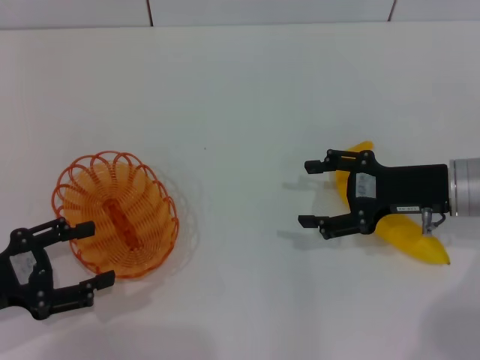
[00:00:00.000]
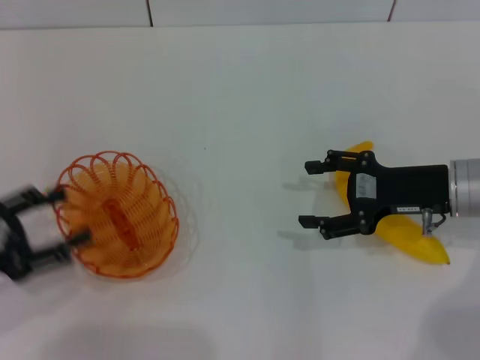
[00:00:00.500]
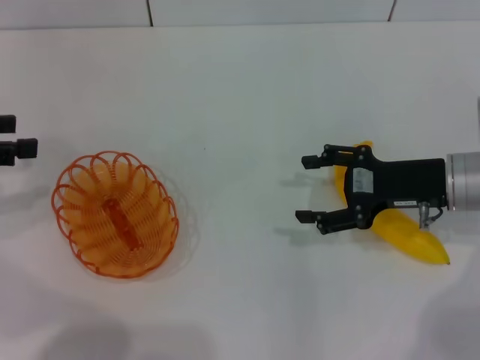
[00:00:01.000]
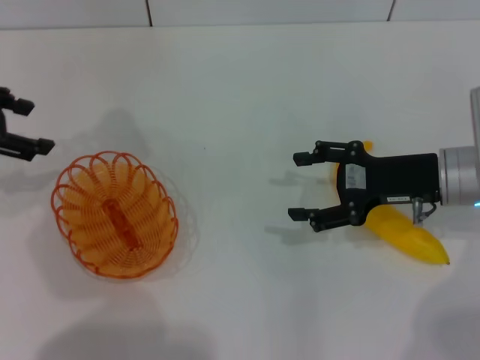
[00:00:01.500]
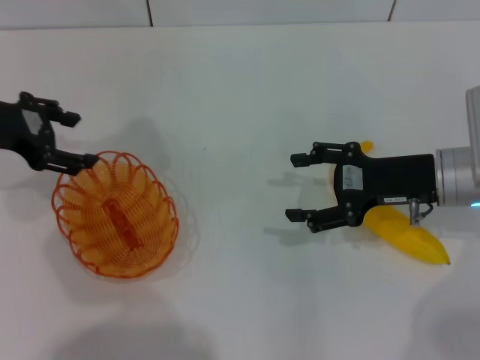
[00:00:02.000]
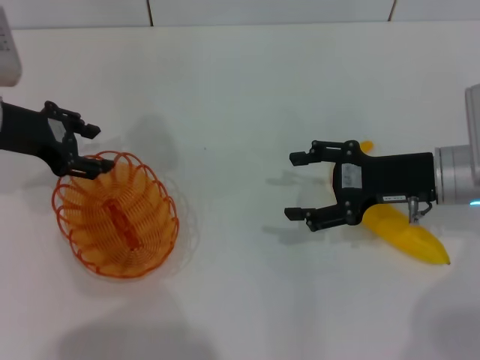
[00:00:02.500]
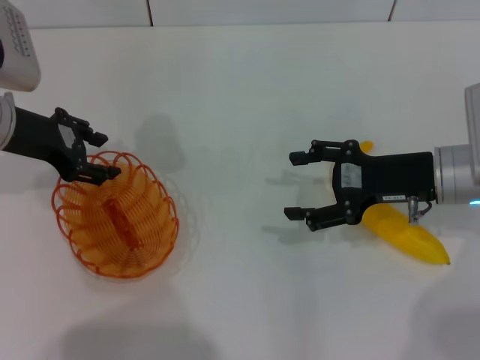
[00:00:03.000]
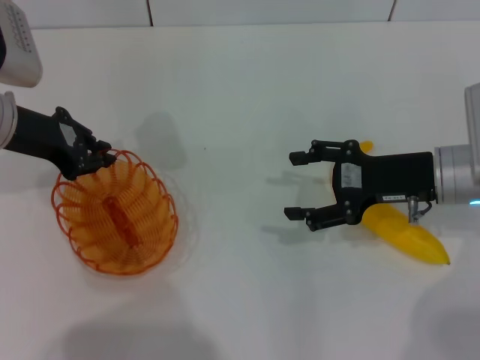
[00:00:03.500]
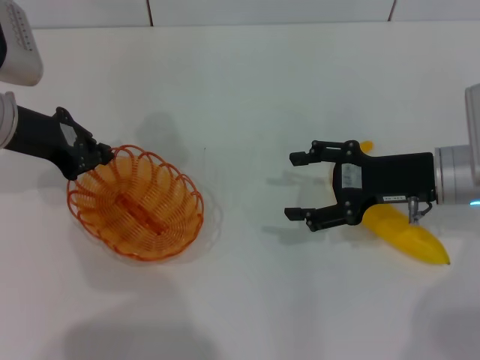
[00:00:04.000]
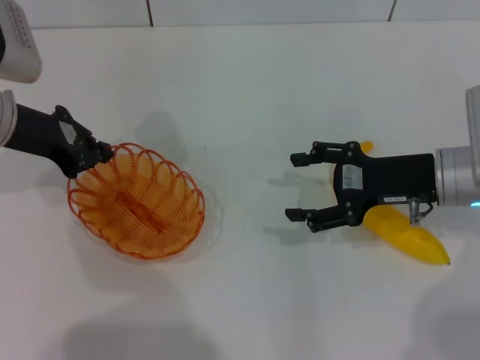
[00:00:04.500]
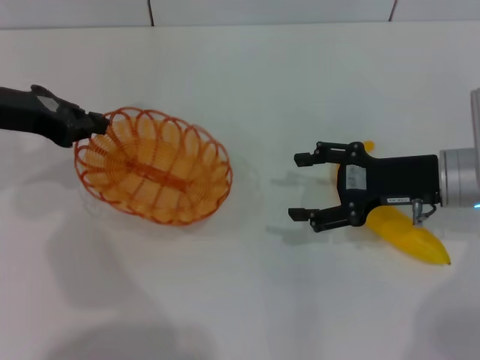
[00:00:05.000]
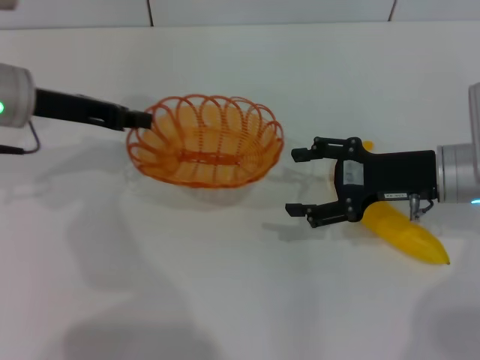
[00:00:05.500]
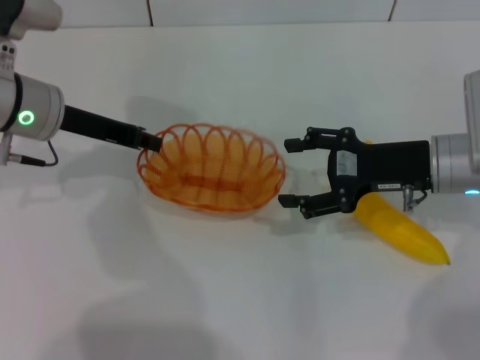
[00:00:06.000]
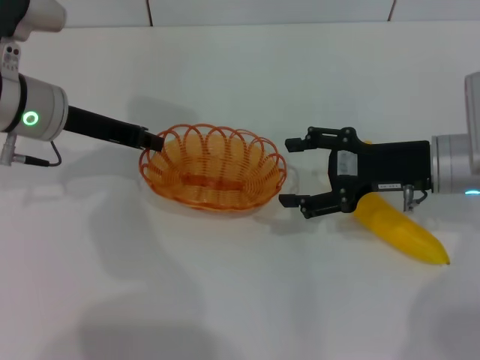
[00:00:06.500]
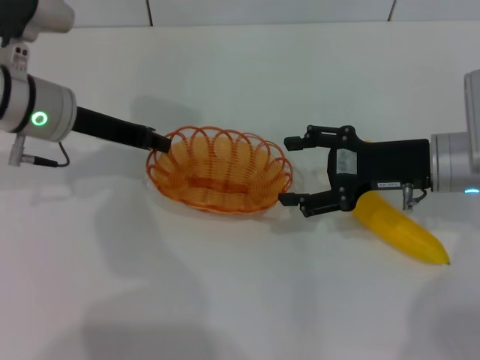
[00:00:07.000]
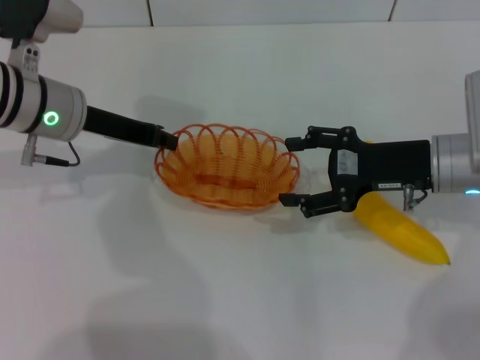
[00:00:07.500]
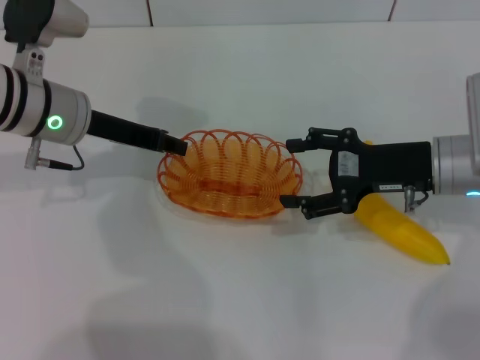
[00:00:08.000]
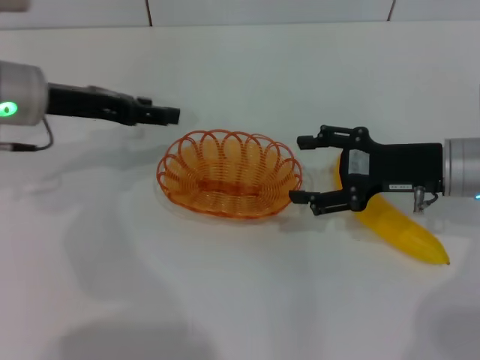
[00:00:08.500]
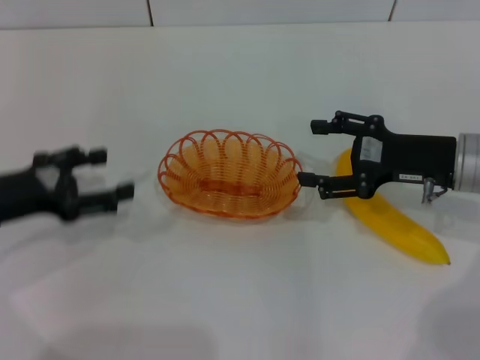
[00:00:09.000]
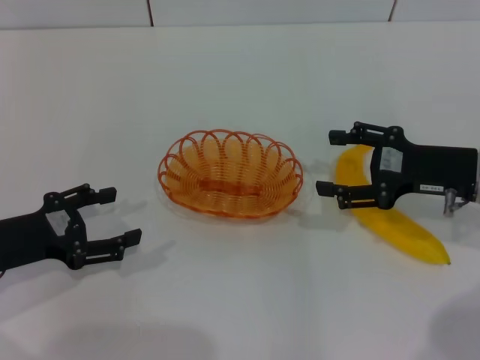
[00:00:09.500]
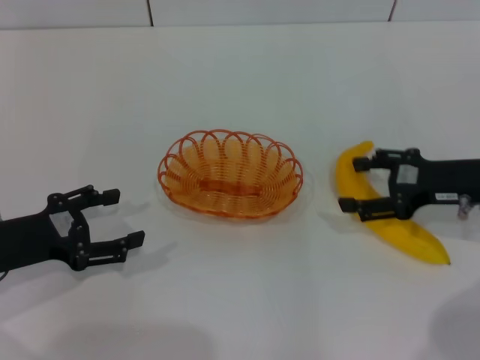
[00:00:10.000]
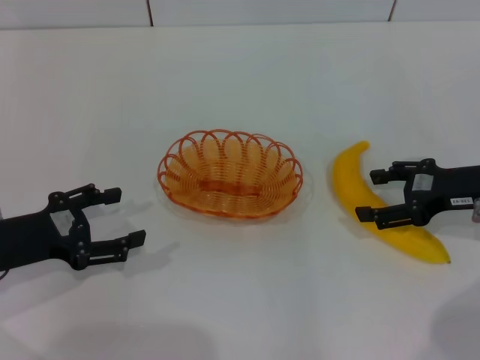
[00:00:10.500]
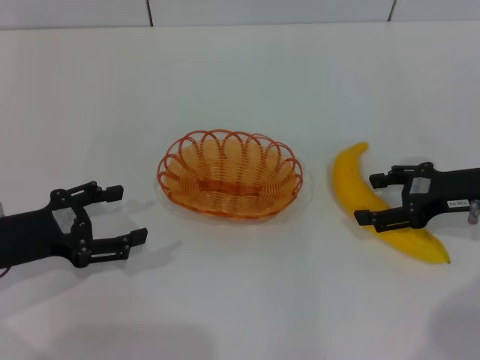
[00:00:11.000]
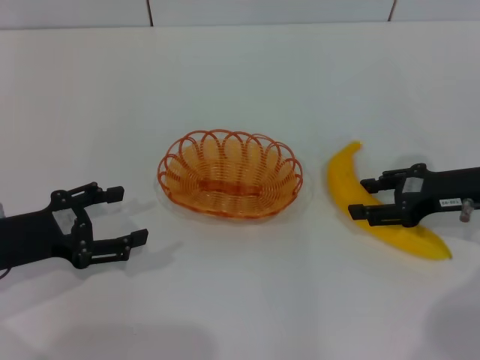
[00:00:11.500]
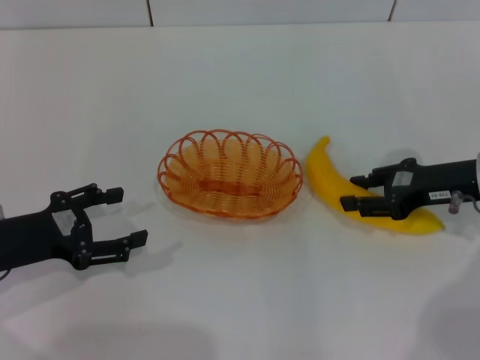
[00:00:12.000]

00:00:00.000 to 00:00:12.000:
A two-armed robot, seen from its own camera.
Step, 00:00:00.000 to 00:00:04.500: Pick up the basket with the left gripper.
Step, 00:00:05.000 to 00:00:08.000: Place the basket in the center of view with the left gripper.
00:00:00.000 to 00:00:02.000: The left gripper is displaced forward and upward by roughly 20 cm.
00:00:02.000 to 00:00:04.000: The left gripper closes up.
00:00:06.000 to 00:00:08.000: There are only small adjustments of the grippers.
00:00:08.000 to 00:00:10.000: The right gripper goes some 5 cm to the right. The left gripper heads backward, to the left and downward, covering some 20 cm, and opens.
00:00:10.000 to 00:00:12.000: The right gripper closes its fingers.

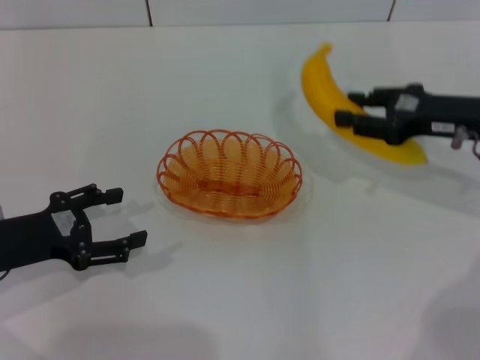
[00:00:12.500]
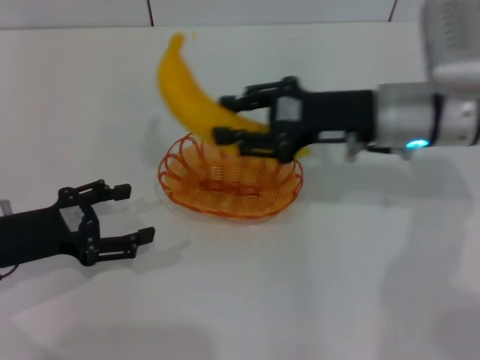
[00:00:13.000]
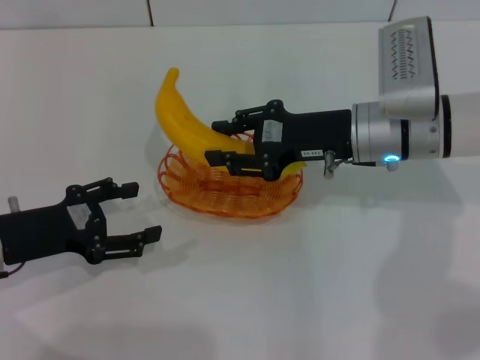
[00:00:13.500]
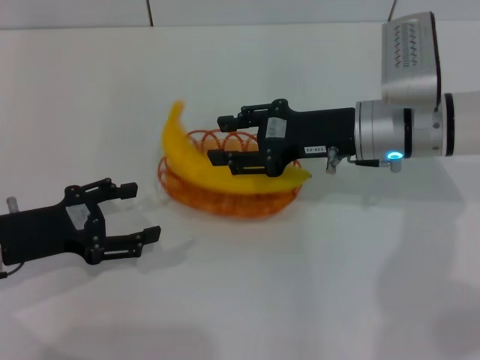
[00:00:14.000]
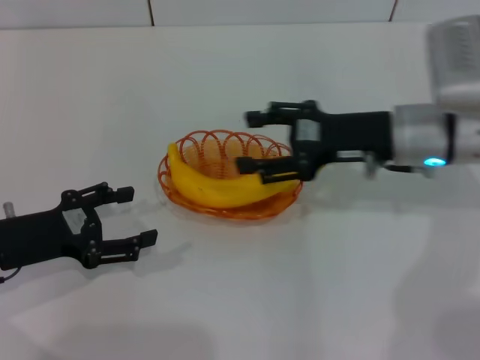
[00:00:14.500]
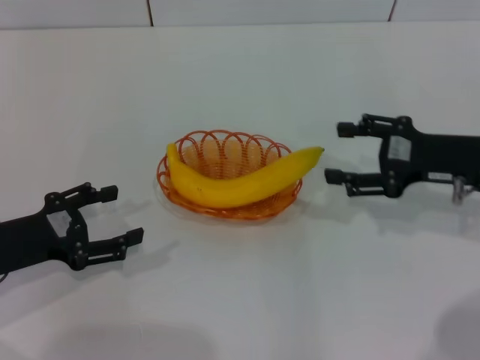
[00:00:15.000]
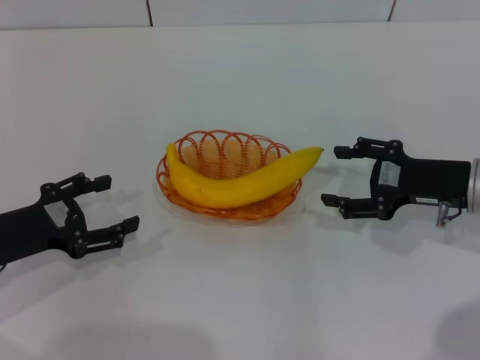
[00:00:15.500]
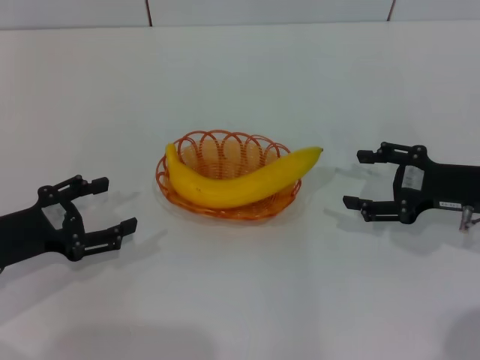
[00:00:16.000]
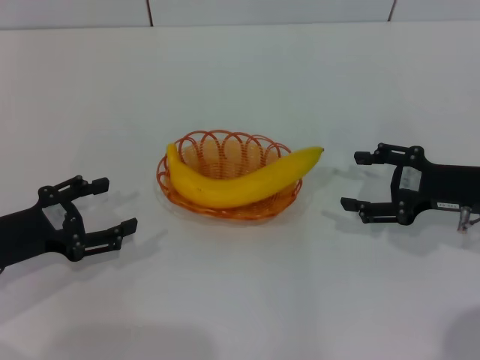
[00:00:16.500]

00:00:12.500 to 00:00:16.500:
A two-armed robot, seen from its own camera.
Step, 00:00:12.500 to 00:00:14.000: Place the banana into the basket with the right gripper.
00:00:12.500 to 00:00:14.500: The right gripper heads to the left, covering about 10 cm, and opens.
00:00:14.500 to 00:00:16.500: The right gripper travels to the right and backward by about 10 cm.

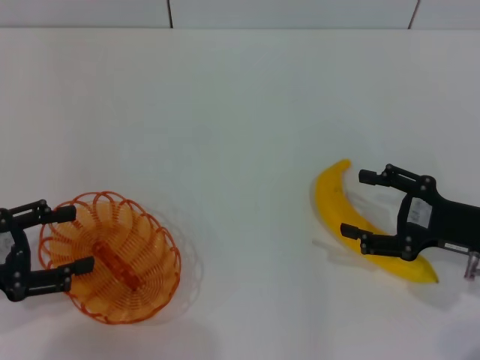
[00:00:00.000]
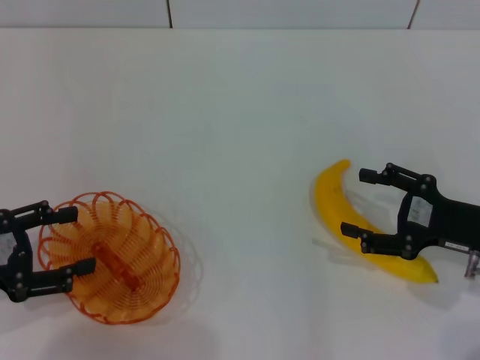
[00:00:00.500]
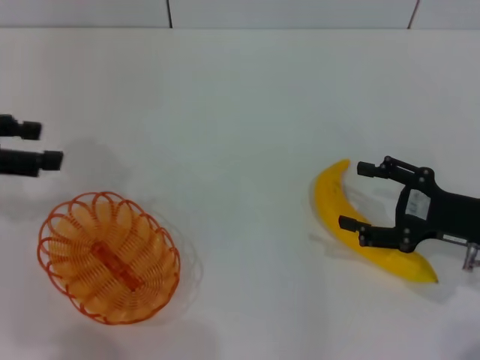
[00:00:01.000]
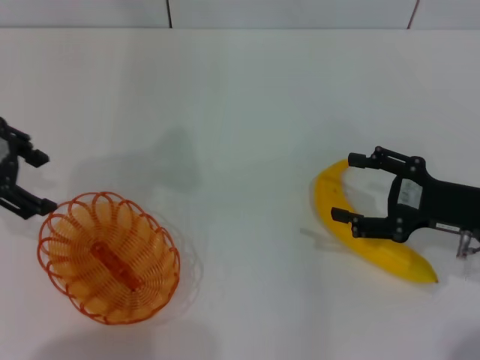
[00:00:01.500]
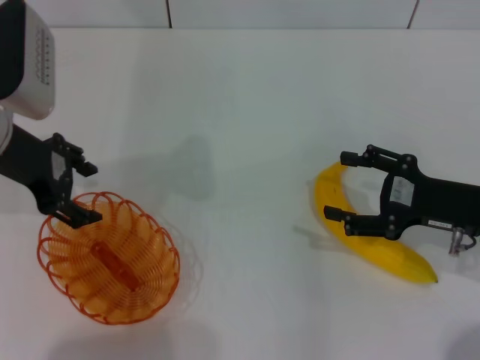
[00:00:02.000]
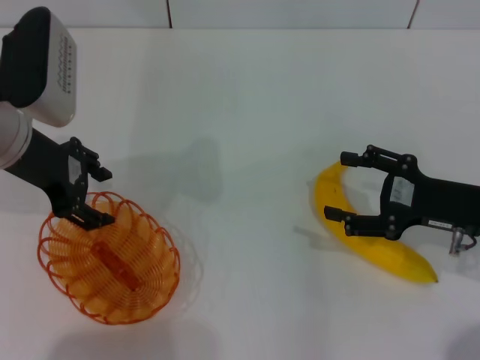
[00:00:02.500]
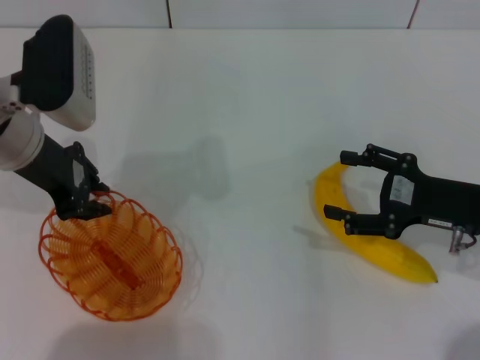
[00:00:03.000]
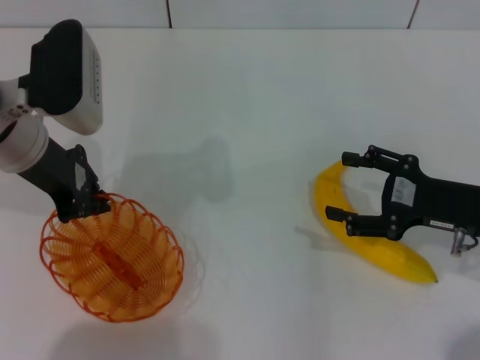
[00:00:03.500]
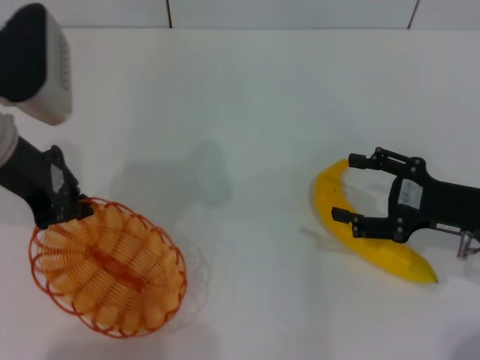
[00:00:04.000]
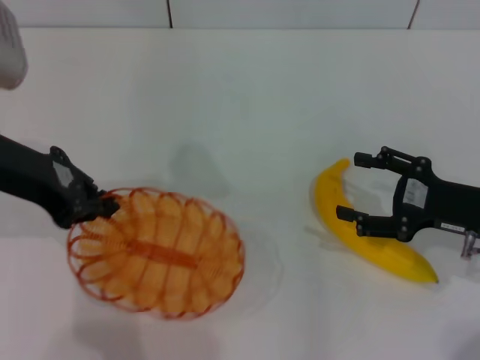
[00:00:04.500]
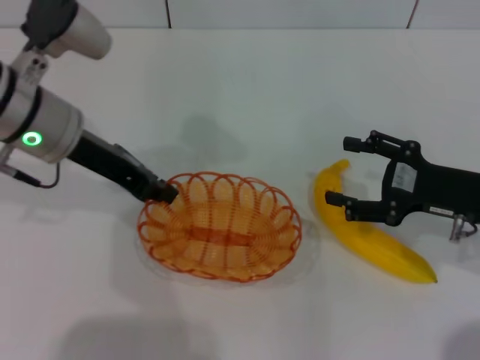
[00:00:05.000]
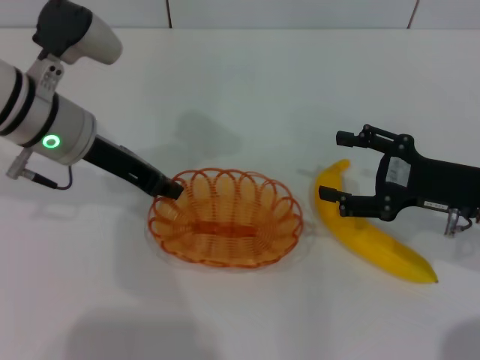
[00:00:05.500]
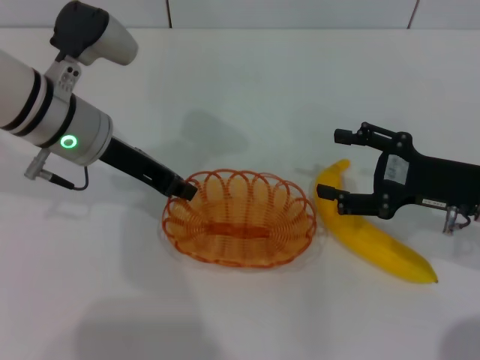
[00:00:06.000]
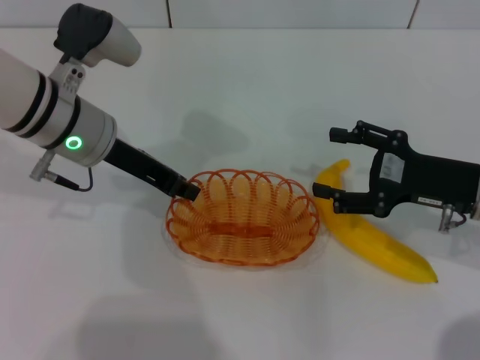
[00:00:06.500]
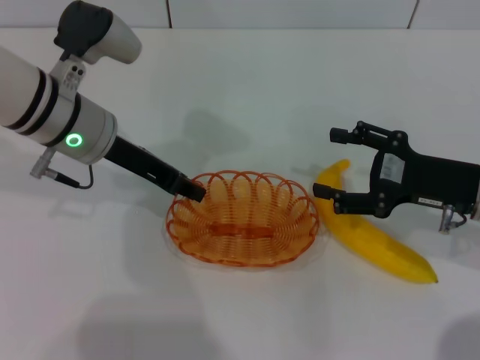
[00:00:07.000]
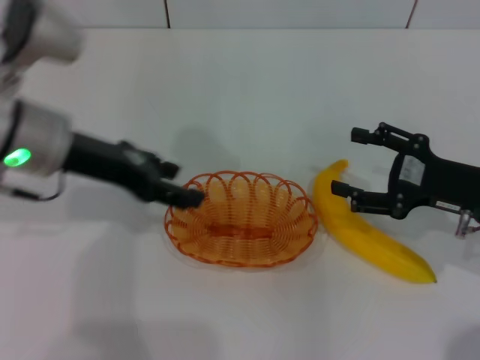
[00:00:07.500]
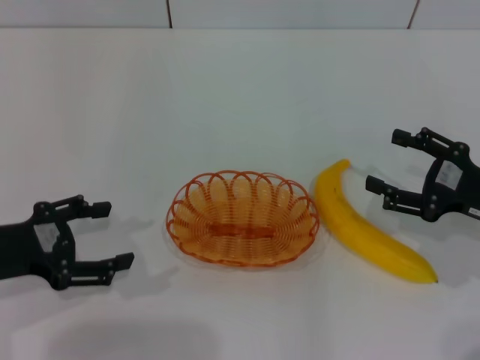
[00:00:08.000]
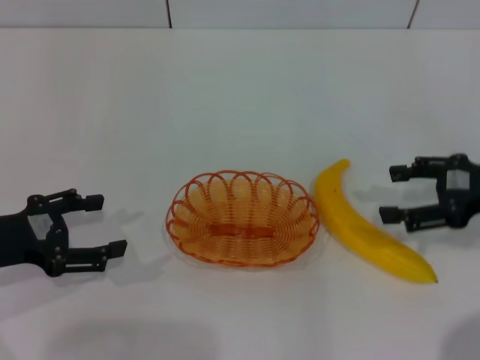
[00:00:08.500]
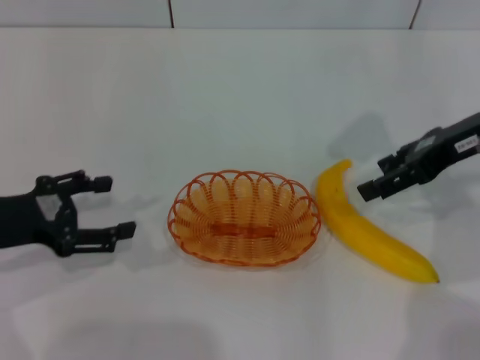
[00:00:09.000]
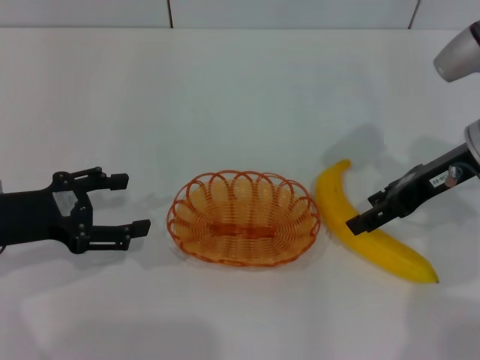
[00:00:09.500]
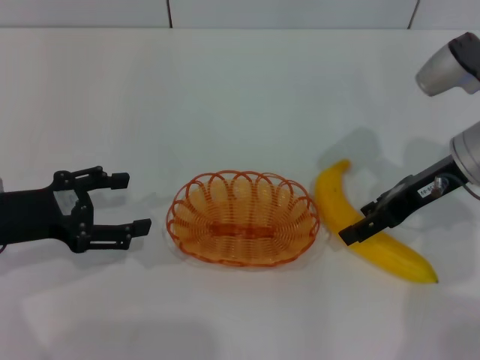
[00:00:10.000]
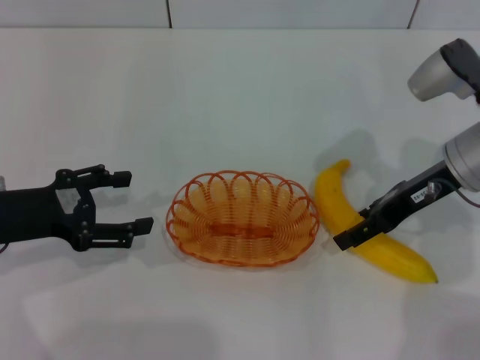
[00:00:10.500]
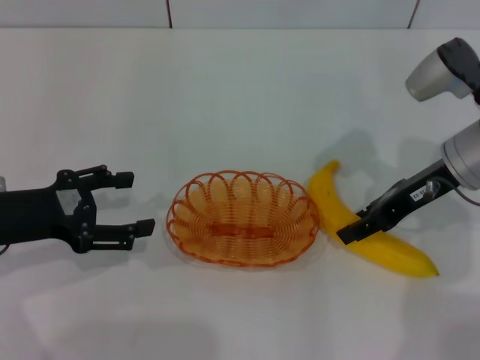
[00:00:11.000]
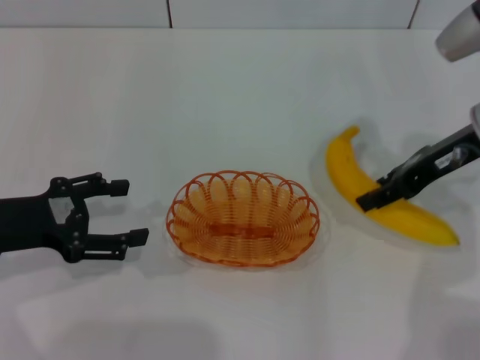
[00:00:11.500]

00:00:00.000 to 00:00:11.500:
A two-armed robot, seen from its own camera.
Step, 00:00:00.000 to 00:00:04.000: Pick up the basket with the left gripper.
Step, 00:00:04.500 to 00:00:07.000: Place the basket in the center of view with the left gripper.
Step, 00:00:07.500 to 00:00:11.000: Pick up the banana with the right gripper.
00:00:00.000 to 00:00:02.000: The left gripper shifts some 20 cm forward, to the right and upward.
00:00:02.000 to 00:00:04.000: The left gripper closes its fingers.
00:00:04.000 to 00:00:06.000: The left gripper moves to the right, about 5 cm.
00:00:06.000 to 00:00:07.500: The left gripper changes place by some 5 cm, and opens up.
00:00:07.500 to 00:00:09.500: The right gripper is displaced forward and upward by some 10 cm. Meanwhile the left gripper is displaced to the left, downward and backward by some 10 cm.
00:00:09.500 to 00:00:11.500: The right gripper closes its fingers.
